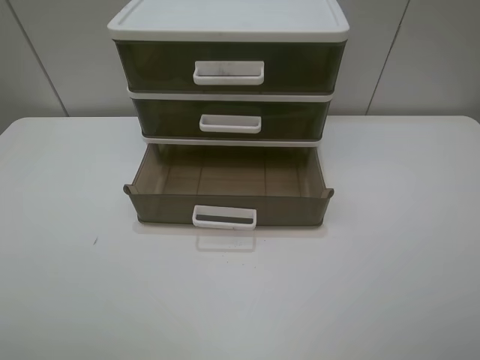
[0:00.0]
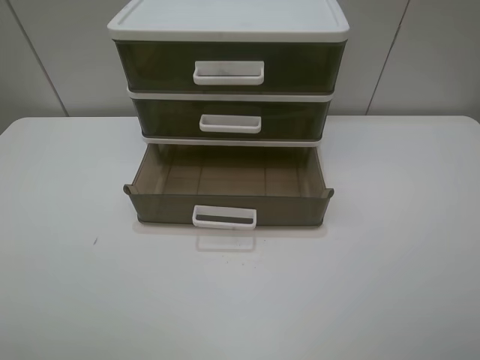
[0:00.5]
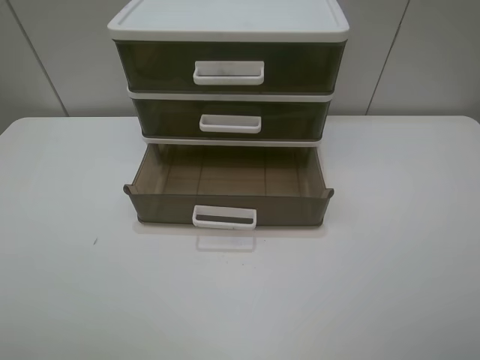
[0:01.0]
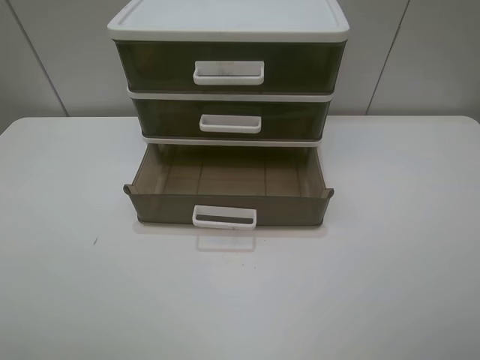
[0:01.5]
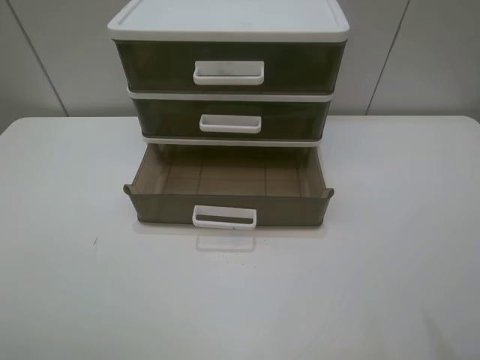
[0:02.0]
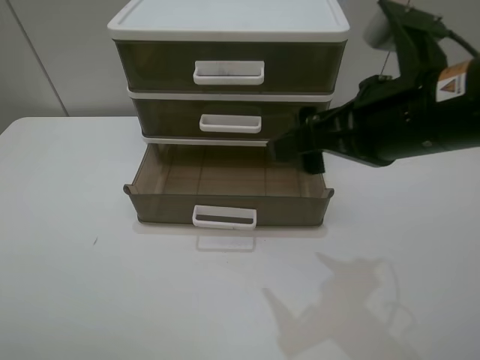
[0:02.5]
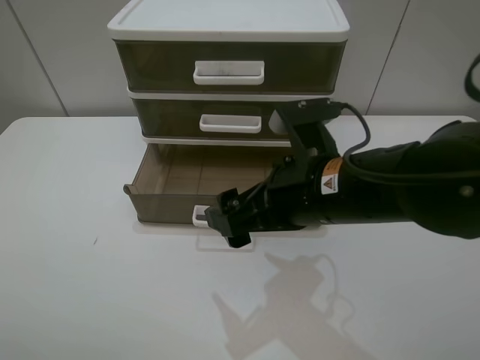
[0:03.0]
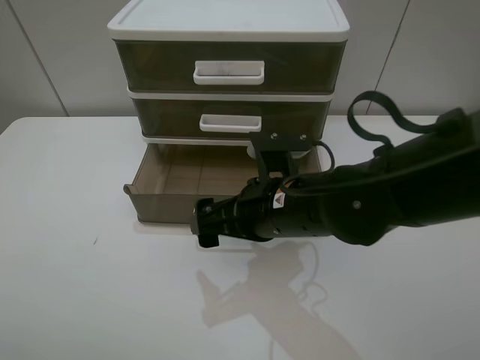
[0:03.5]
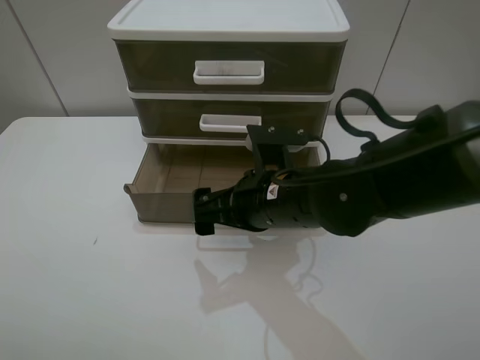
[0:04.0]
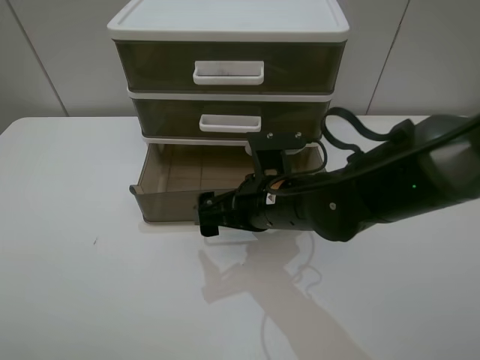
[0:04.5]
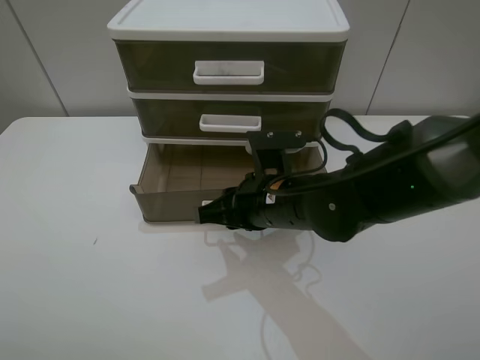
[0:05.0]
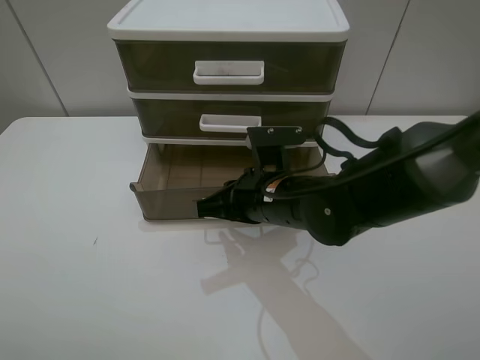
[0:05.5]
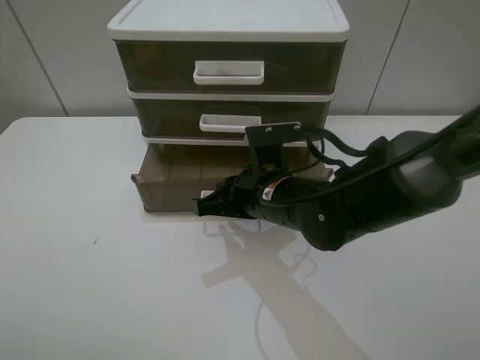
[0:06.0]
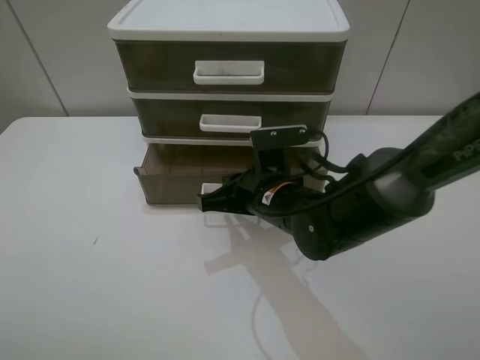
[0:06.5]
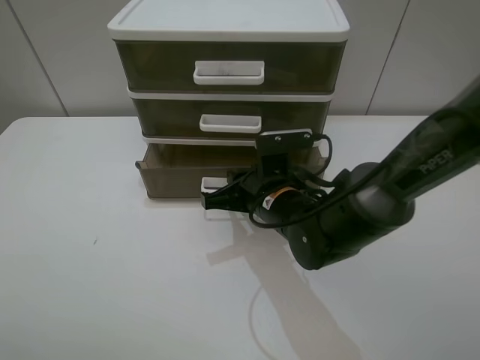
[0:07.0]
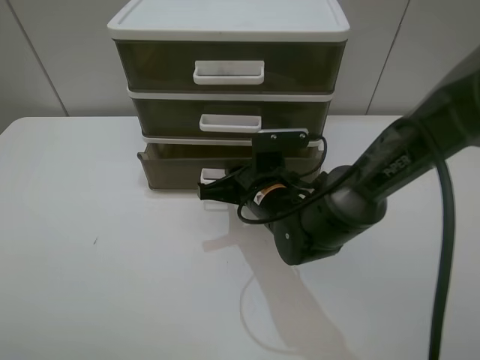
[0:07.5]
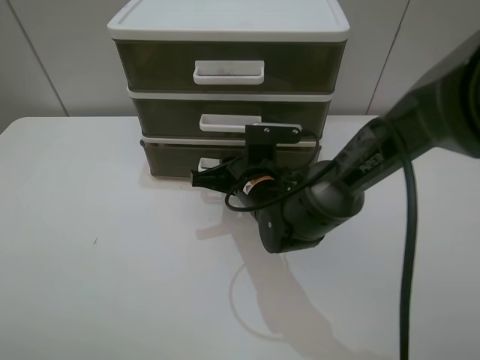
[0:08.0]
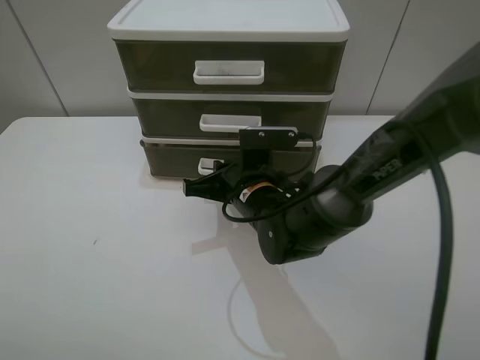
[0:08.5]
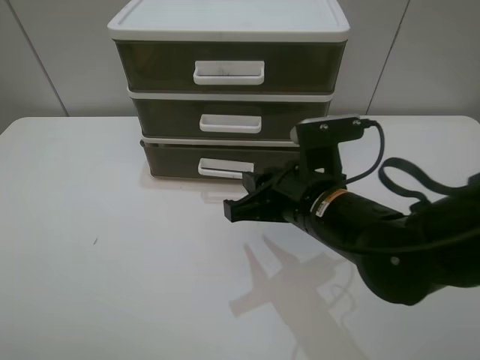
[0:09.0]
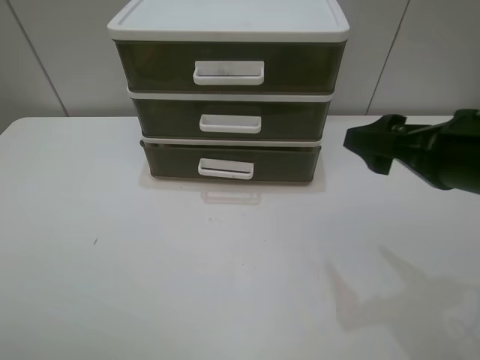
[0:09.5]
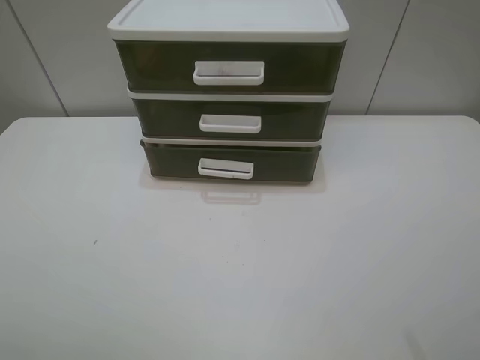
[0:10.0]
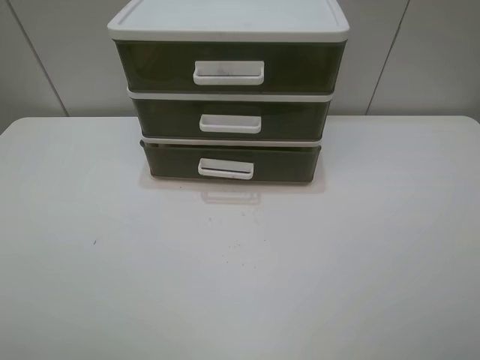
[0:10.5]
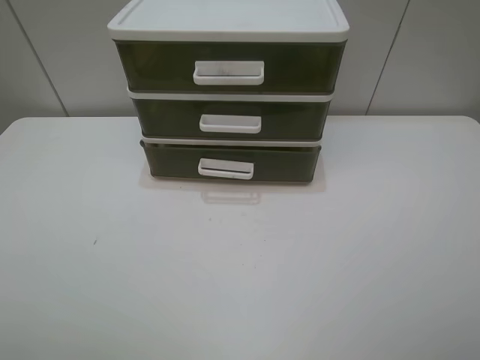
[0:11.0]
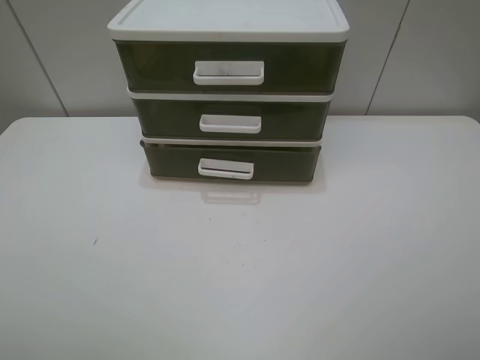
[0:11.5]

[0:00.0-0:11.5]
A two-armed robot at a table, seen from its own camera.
Task of the whole recording: close the bottom drawer.
Step, 0:00.0 to 0:05.0: Use the right gripper to contact the bottom layer of the storage cabinet.
Step, 0:05.5 to 0:08.0: Push the bottom drawer closed.
0:02.0 to 0:04.0: The right gripper moves to the left, downward and forward, some 30 cm.
0:04.0 to 0:06.0: The right gripper closes.
0:06.0 to 0:07.5: The grippers move only a little.
0:07.5 to 0:09.5: The right gripper travels to the right, upward and backward by about 25 cm, and opens its fingers.
0:09.5 to 0:11.5: The right gripper moves backward, roughly 15 cm.
